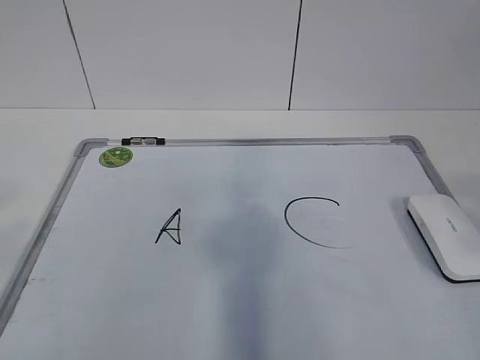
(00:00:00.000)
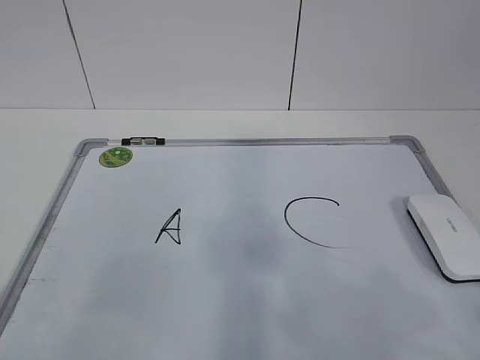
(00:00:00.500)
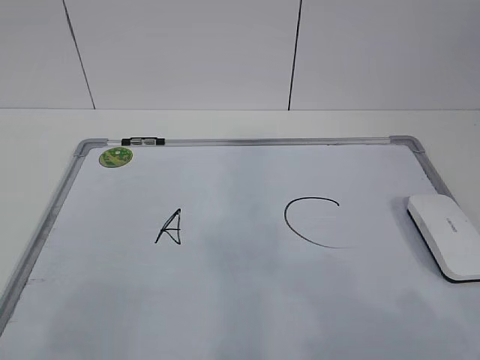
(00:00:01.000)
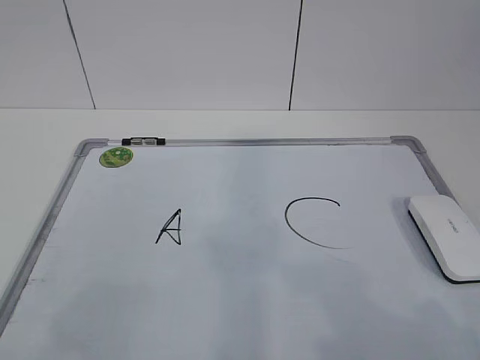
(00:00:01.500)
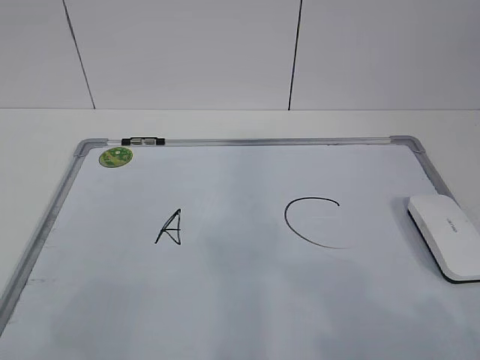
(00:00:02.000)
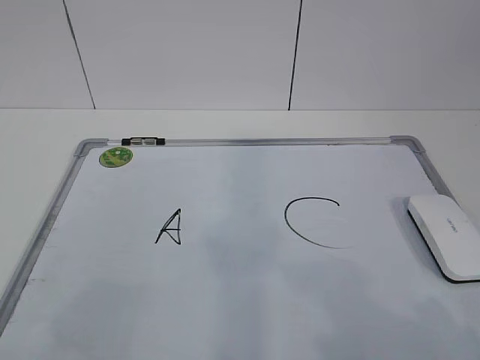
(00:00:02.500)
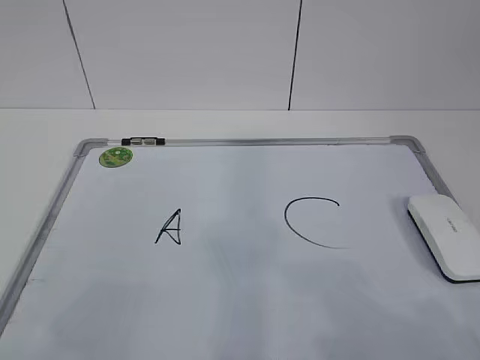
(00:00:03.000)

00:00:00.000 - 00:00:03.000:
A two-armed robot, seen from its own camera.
Task of the whole recording: pick up the eraser on the blackboard and erase the letter "B".
00:00:00.000 - 00:00:01.500: The left gripper travels downward by about 10 cm. Meanwhile the right gripper travels downward by approximately 10 cm.
00:00:01.500 - 00:00:03.000: Both grippers stay about where they are.
